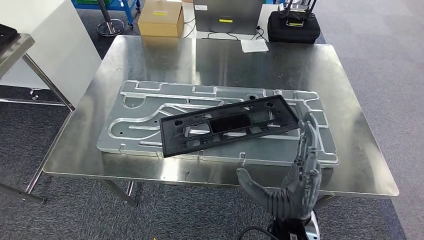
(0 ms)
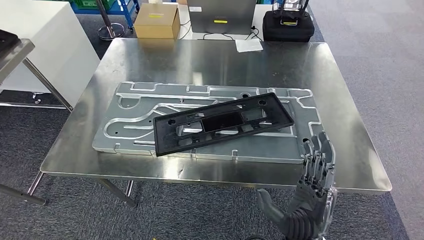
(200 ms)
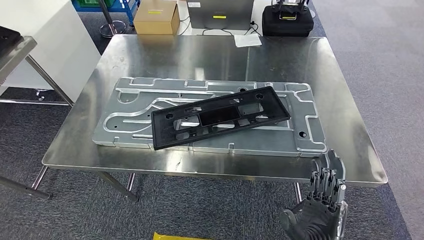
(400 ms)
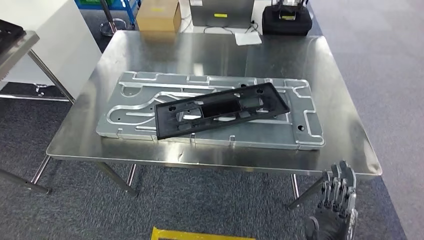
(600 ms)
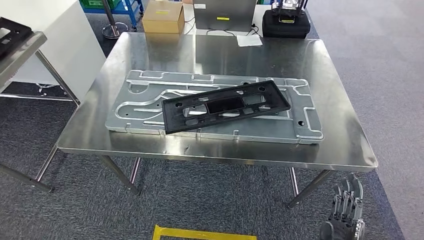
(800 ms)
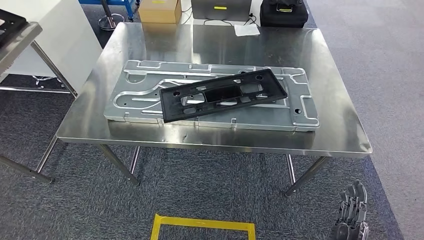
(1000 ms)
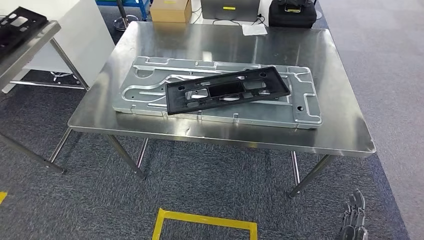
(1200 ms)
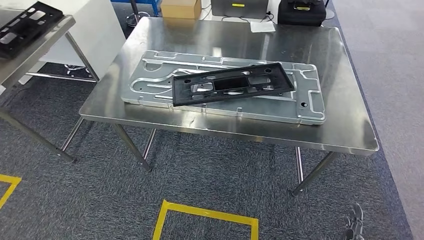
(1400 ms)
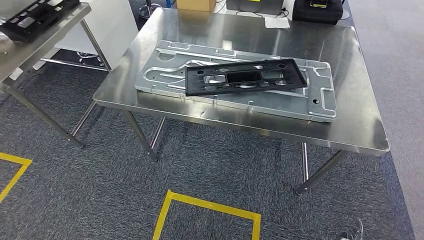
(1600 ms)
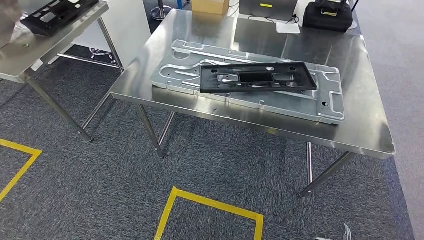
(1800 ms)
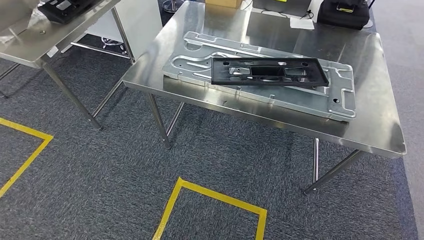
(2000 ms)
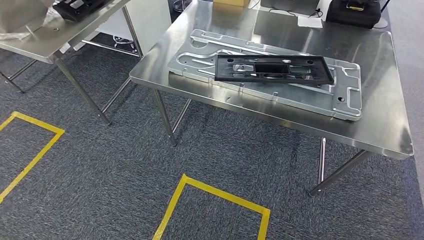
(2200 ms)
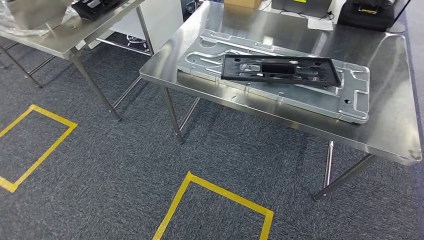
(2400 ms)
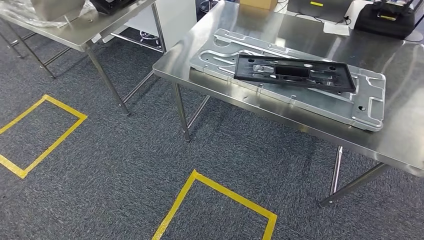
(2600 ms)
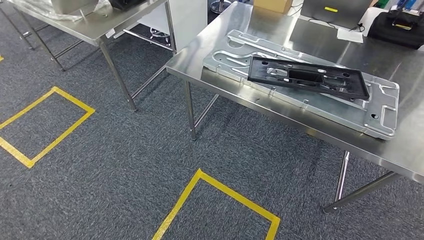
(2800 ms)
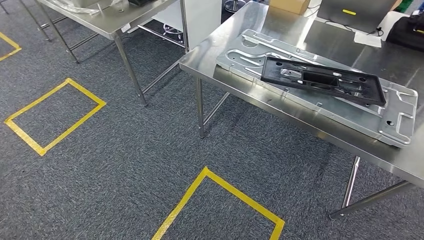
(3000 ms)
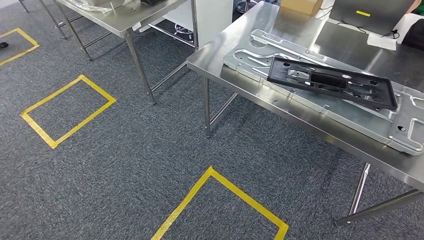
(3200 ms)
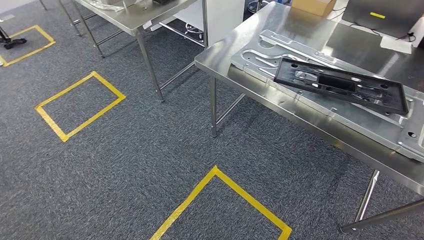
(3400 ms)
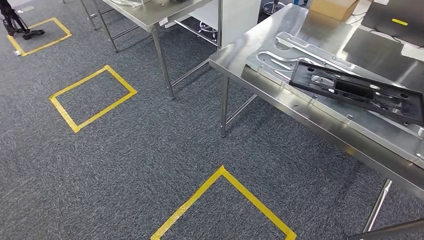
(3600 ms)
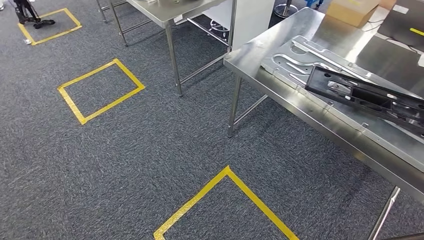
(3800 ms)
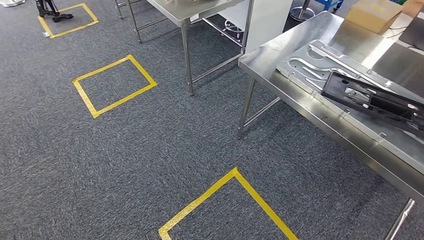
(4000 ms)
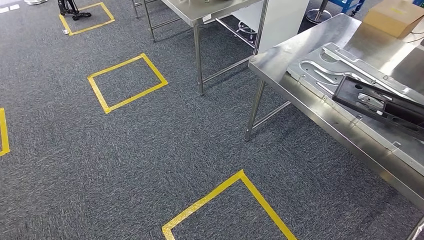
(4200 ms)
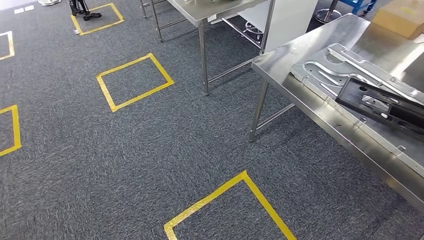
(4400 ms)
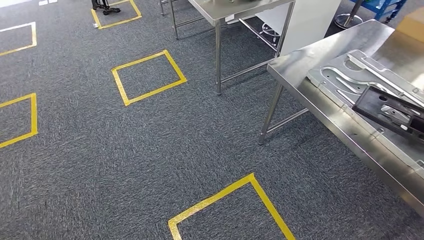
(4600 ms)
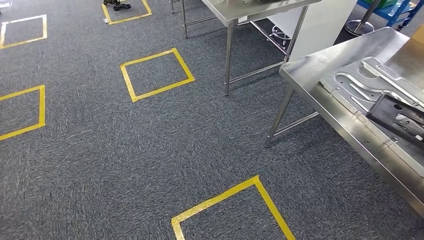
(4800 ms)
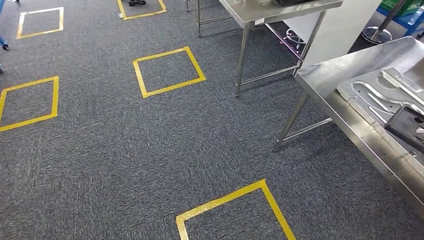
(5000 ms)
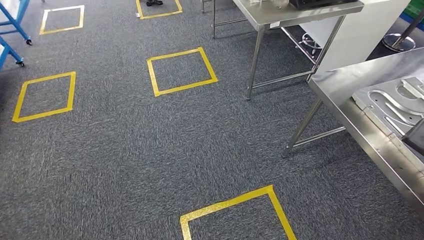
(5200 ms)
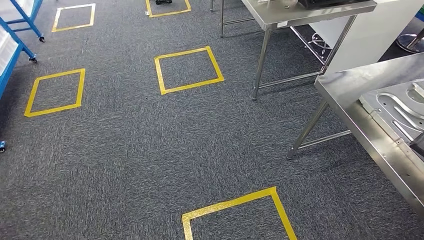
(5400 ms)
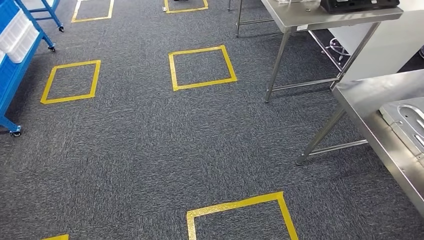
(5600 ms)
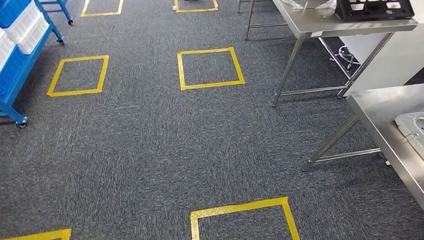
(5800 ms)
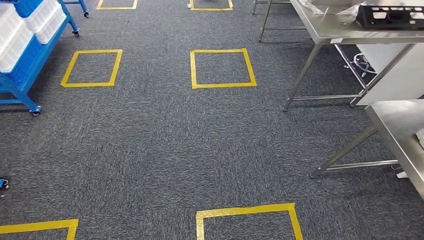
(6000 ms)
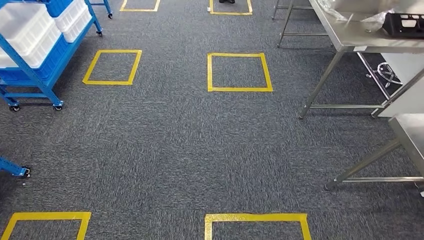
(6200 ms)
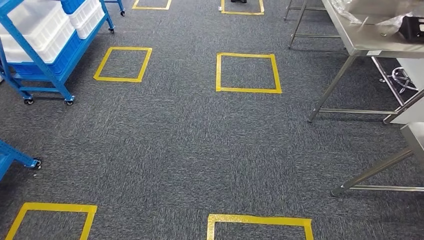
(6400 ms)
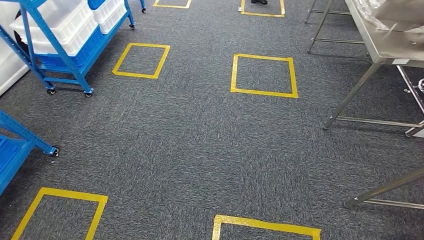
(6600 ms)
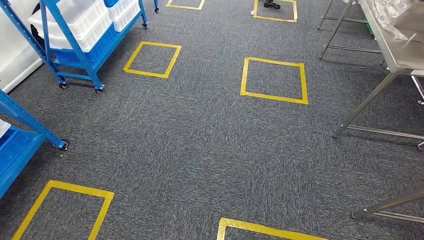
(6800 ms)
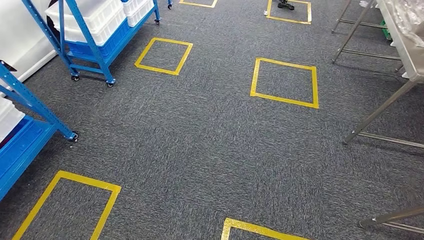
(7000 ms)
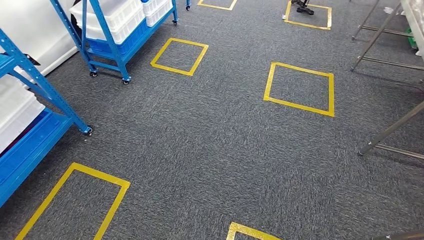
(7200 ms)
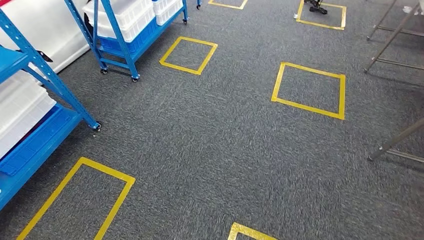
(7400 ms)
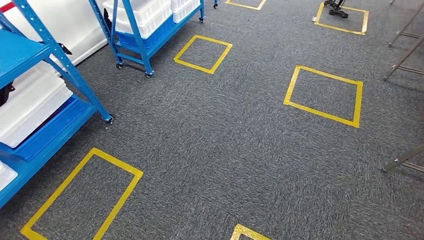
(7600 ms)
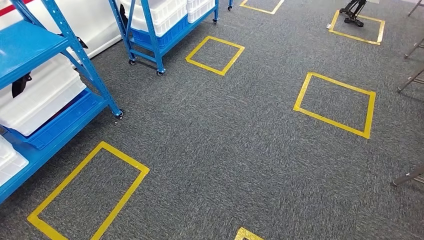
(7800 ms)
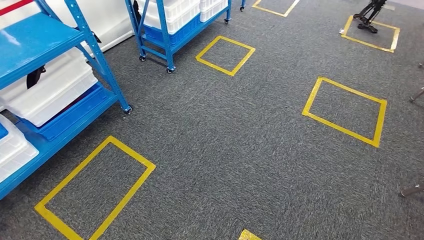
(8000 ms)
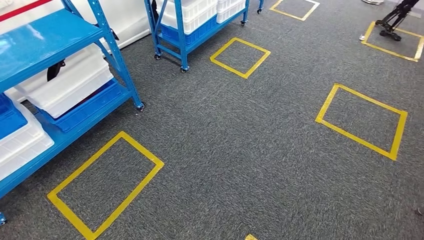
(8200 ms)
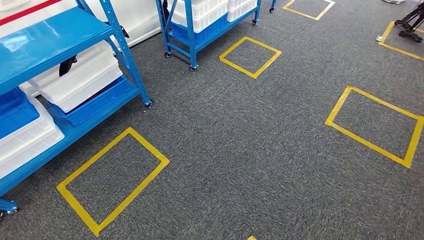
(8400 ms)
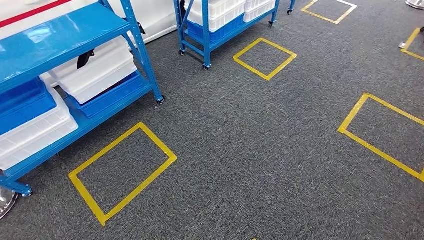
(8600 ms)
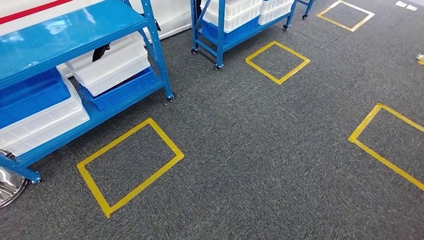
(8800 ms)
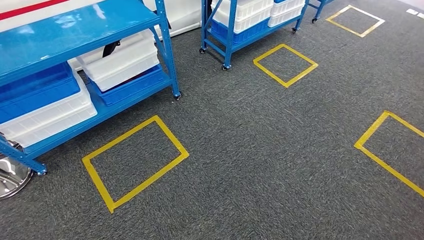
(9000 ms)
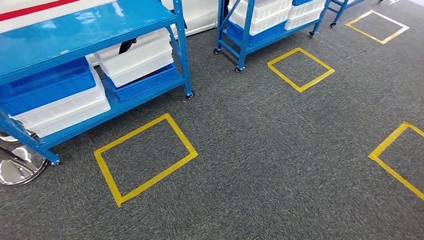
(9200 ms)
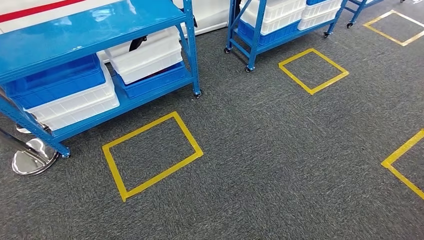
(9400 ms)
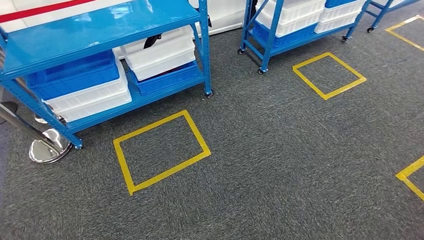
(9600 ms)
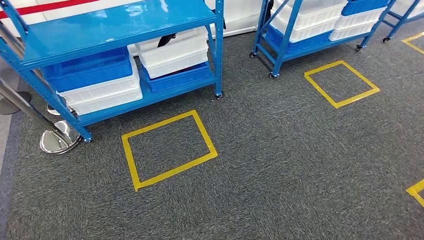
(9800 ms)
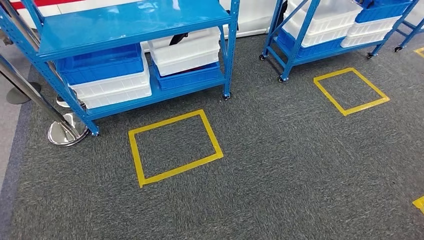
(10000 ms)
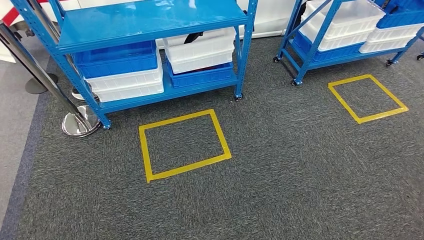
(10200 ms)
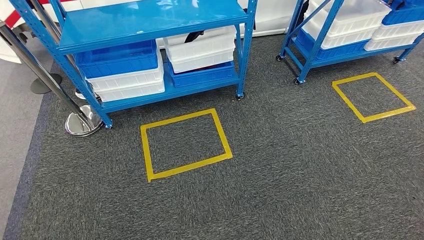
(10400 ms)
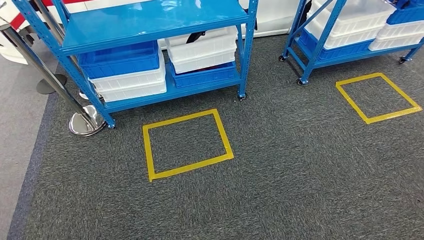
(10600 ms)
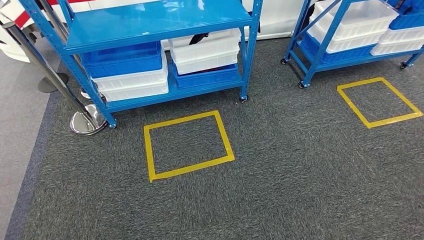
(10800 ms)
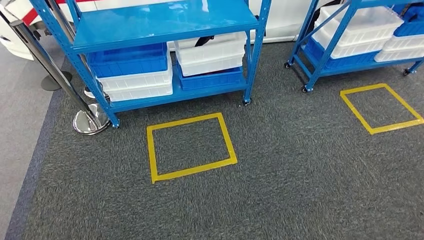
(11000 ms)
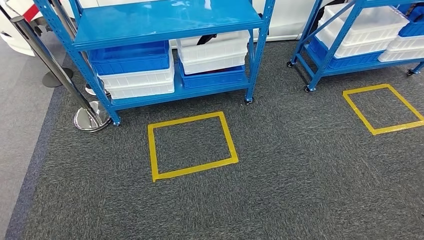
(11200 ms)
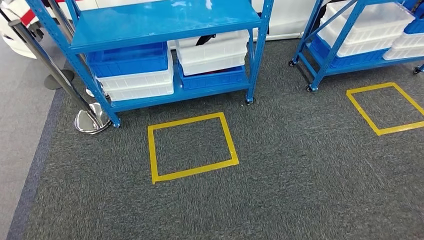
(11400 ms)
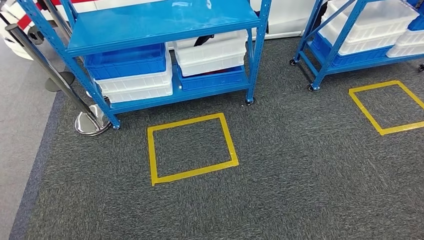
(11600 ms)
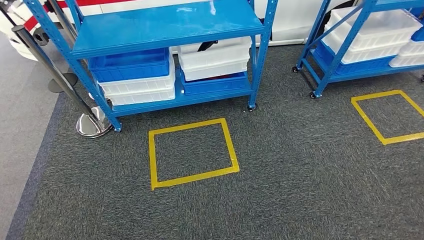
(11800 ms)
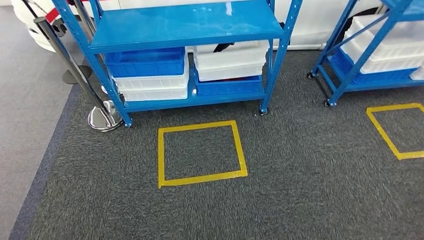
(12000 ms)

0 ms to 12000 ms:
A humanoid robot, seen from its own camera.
Step, 0 ms to 2200 ms: Insert the large material into the corresponding slot on the workbench.

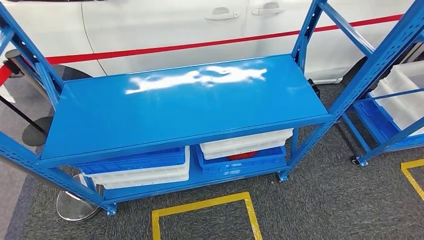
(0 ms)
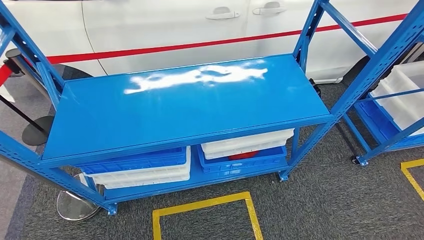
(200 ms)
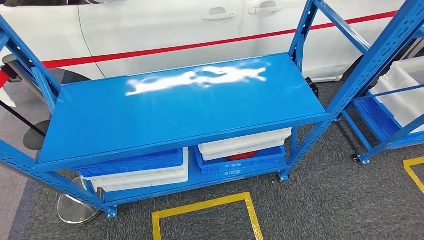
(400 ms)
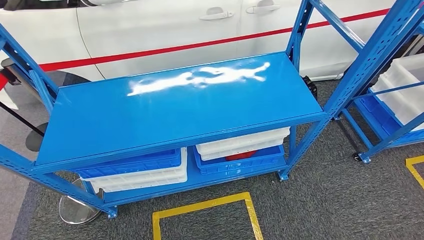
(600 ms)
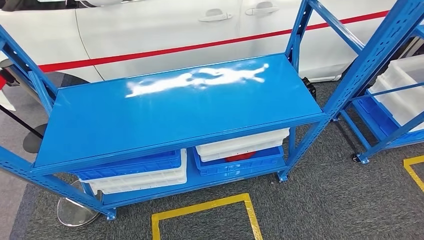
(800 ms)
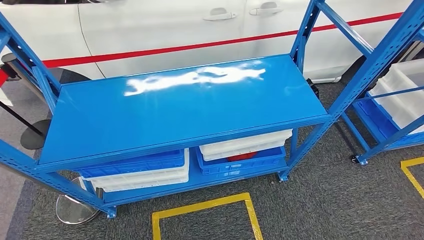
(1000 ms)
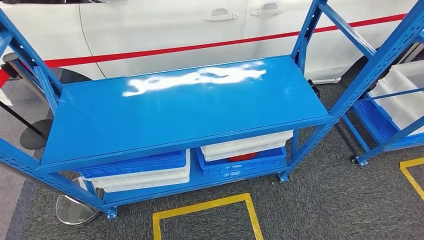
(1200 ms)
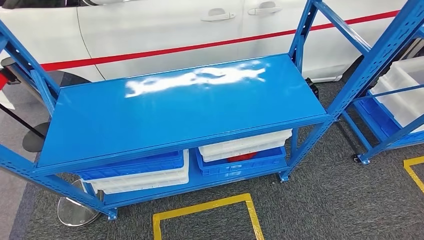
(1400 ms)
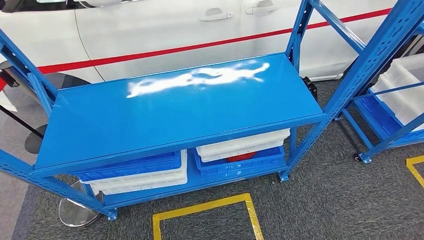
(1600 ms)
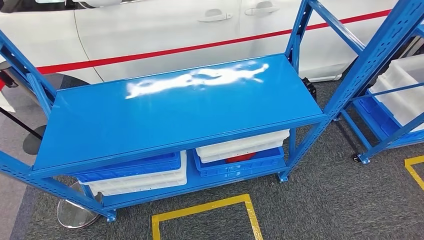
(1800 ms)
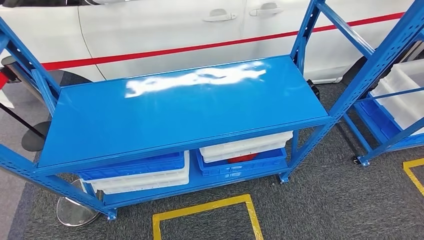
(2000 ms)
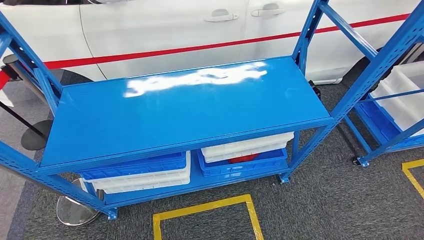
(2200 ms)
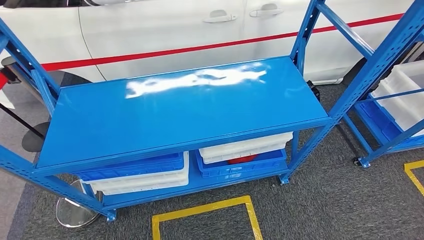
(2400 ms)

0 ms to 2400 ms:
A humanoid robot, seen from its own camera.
Step, 0 ms to 2400 ms: Move to the initial position of the shelf.
0 ms to 1200 ms: Both hands stay put.
1200 ms to 2400 ms: The hands move only a little.
